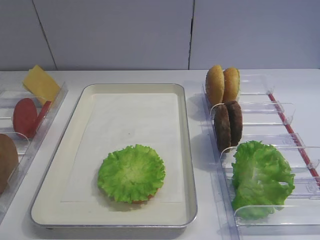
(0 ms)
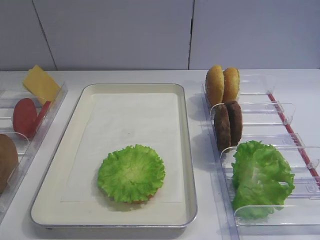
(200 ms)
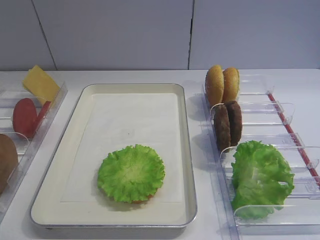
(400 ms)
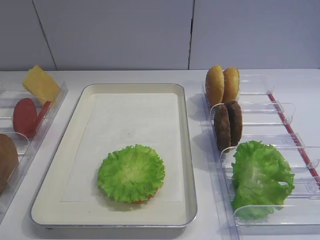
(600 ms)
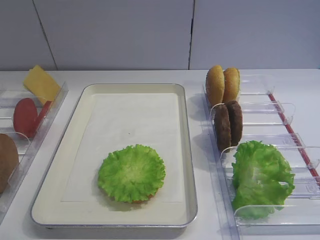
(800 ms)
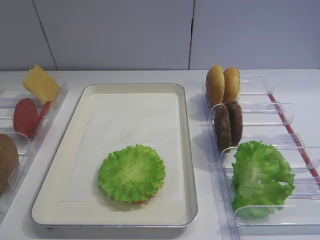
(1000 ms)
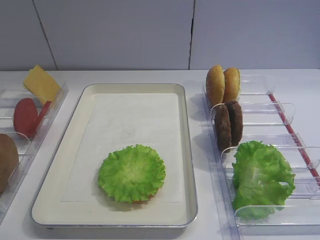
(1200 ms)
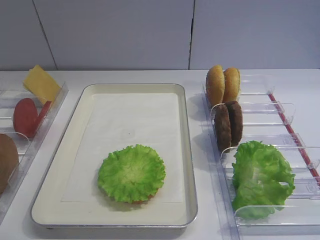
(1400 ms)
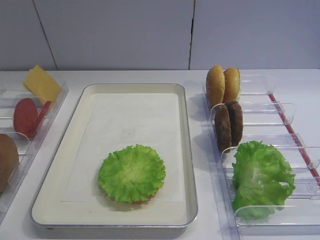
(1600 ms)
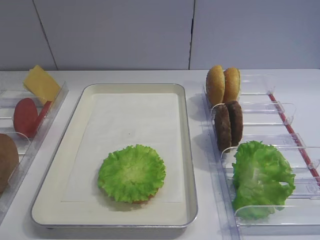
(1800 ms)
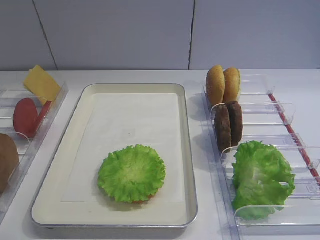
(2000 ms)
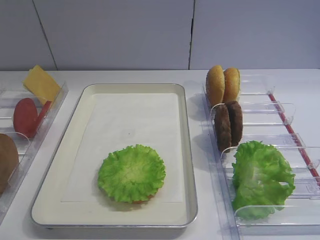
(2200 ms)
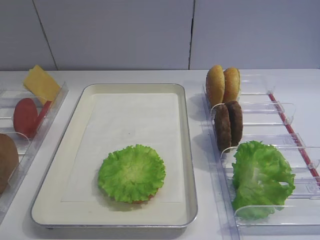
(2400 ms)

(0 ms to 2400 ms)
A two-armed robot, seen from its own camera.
1200 ms - 2400 ms: Both grippers stay put.

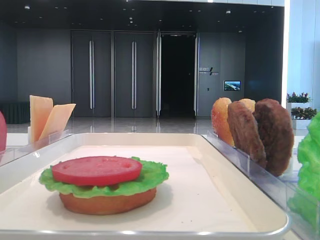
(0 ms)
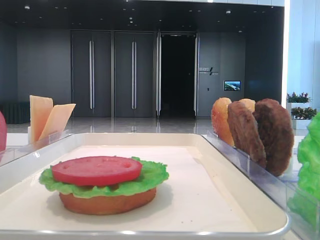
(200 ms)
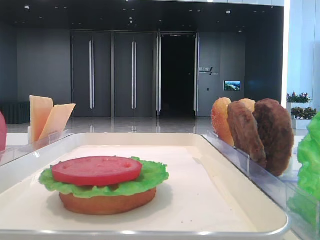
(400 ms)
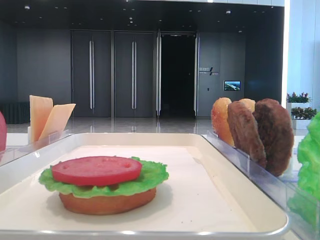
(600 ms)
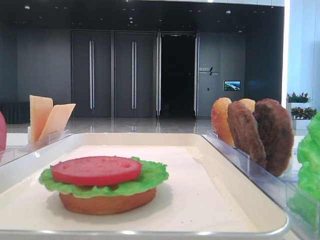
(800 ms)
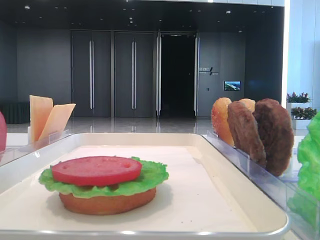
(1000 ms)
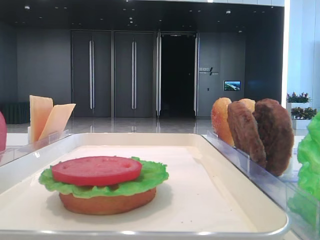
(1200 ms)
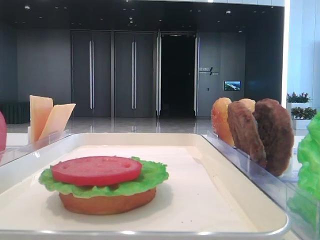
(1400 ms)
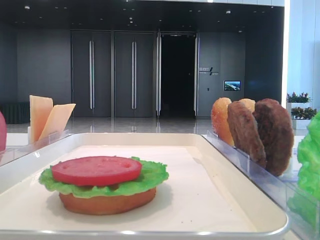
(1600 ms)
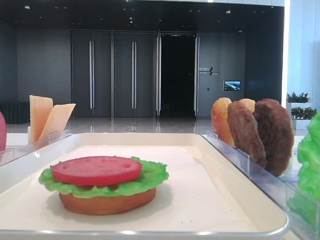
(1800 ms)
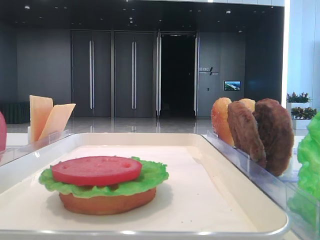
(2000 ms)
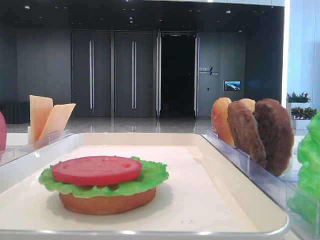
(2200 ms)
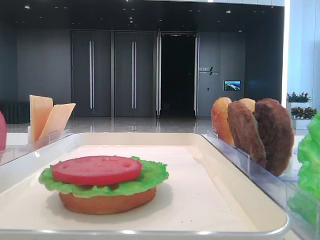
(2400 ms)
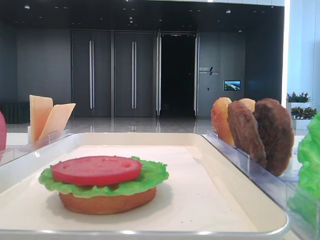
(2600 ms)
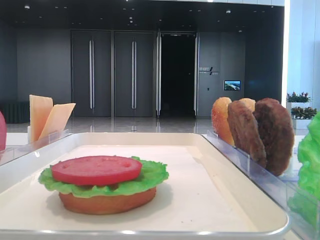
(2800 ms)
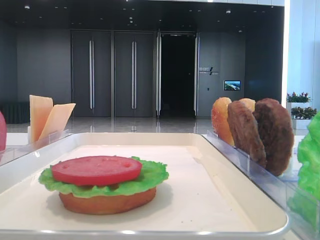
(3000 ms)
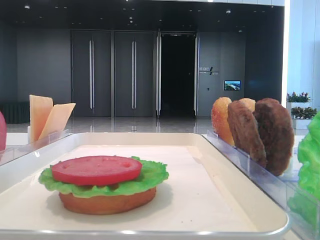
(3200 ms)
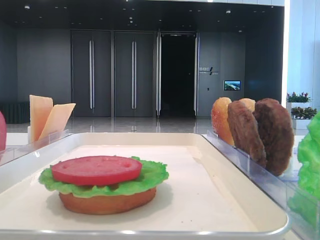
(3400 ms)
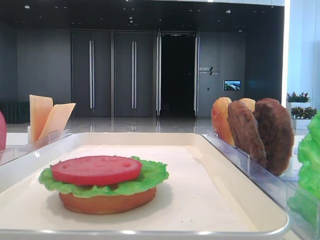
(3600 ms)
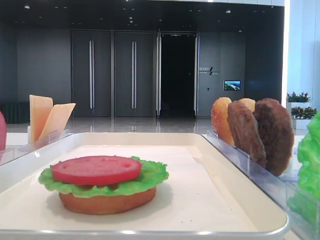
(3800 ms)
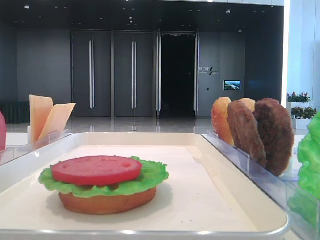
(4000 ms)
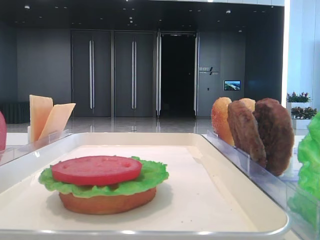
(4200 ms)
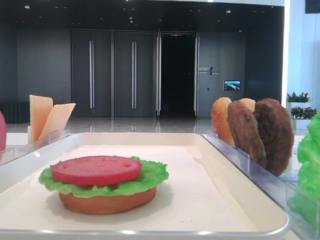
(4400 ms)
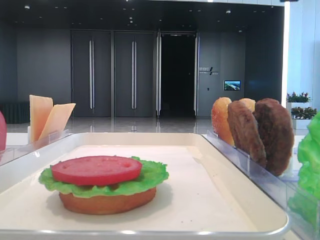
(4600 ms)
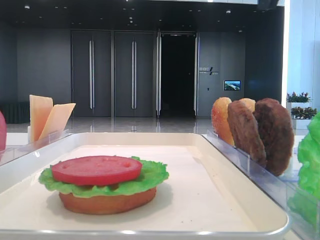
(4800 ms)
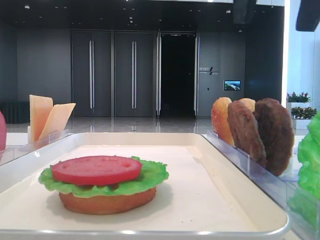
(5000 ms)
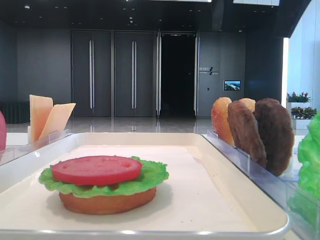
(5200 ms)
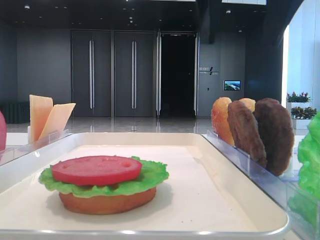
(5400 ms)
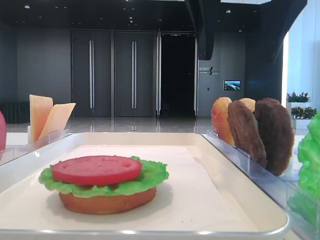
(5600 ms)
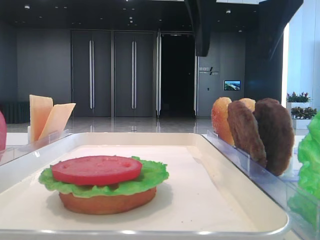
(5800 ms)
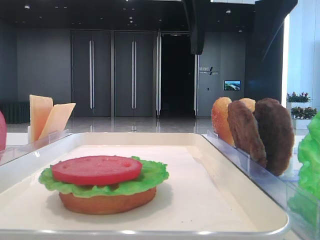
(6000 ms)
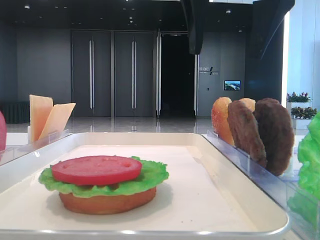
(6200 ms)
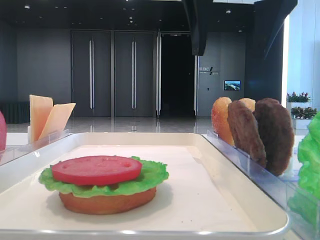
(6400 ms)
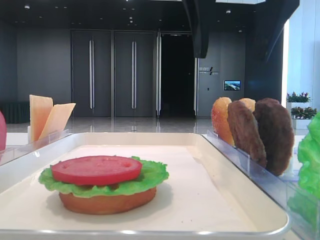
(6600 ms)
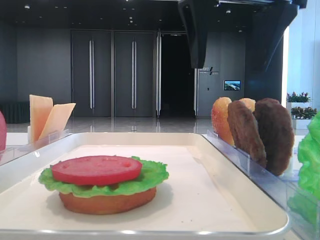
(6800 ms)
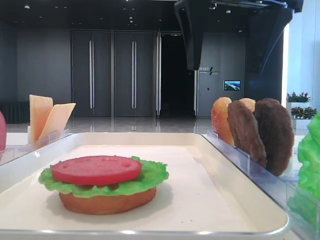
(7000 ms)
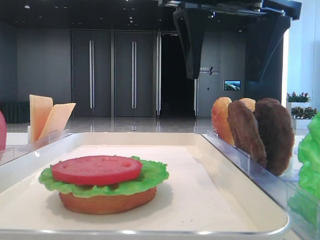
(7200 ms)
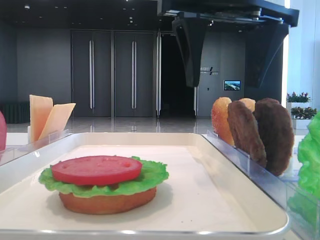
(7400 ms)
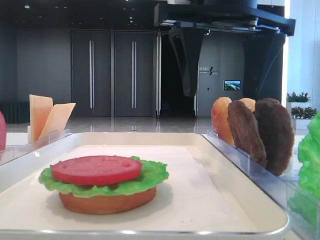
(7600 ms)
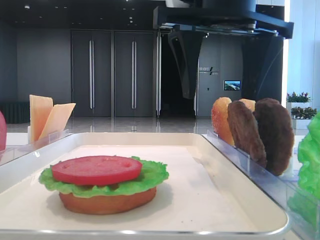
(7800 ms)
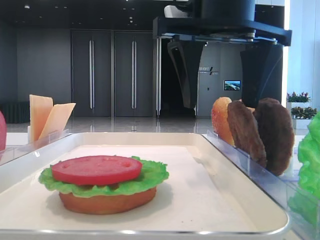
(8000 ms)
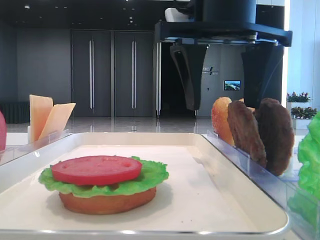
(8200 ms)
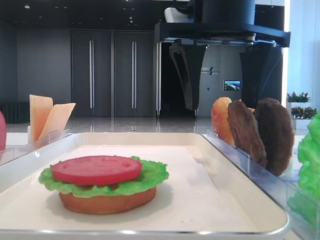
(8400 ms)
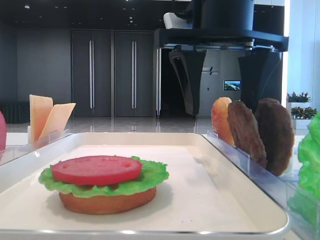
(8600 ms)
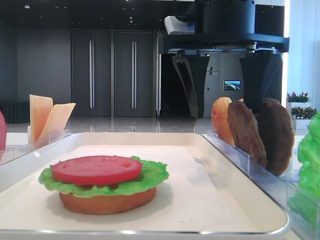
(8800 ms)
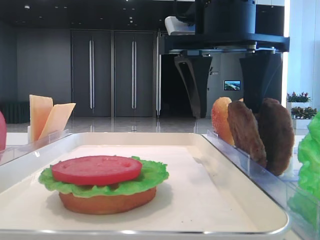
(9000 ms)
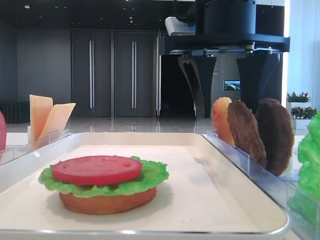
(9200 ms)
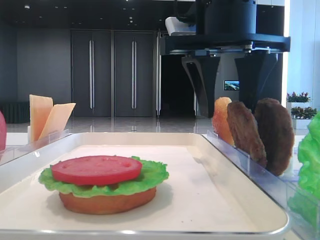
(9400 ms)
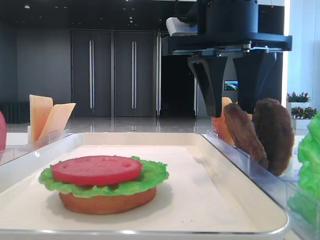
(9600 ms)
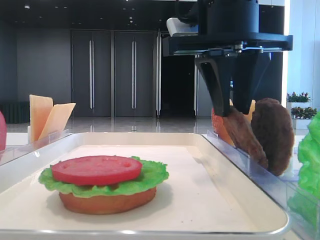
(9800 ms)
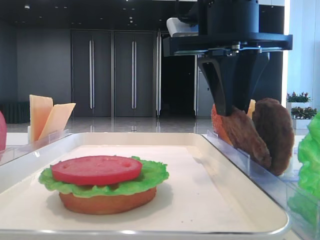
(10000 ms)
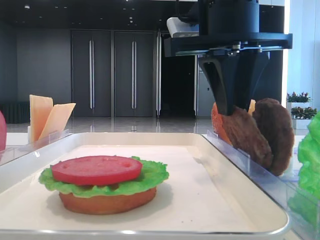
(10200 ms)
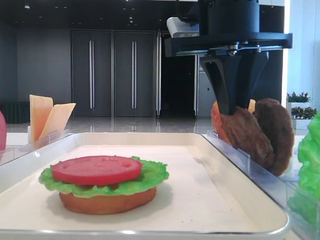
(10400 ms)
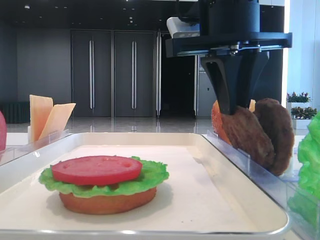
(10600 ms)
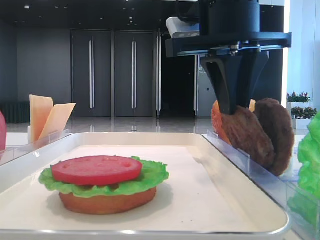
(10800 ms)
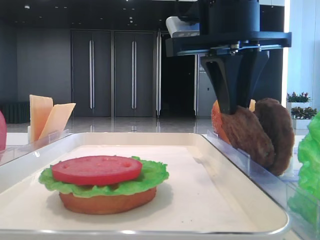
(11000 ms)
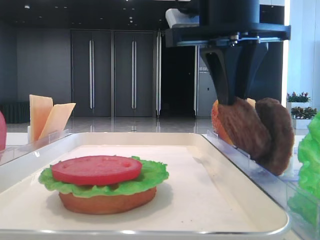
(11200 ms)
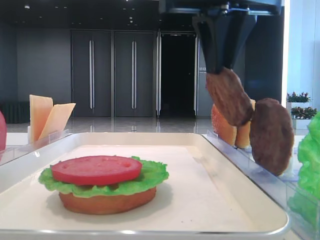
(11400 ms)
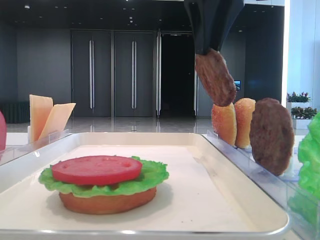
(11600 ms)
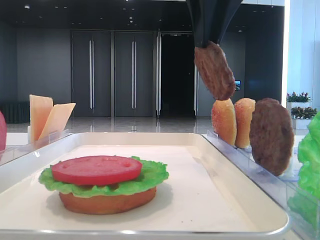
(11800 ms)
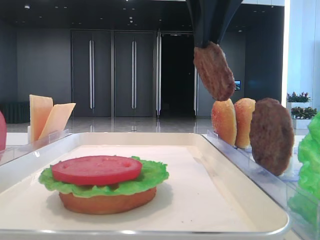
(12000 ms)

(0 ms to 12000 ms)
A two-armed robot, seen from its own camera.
Step, 0 ms - 11000 ms: Grab the patty with the right hand.
4400 ms - 6000 ms: The right gripper goes roughly 10 cm to the left and forward.
6000 ms - 7600 ms: The grippers move only a little.
7600 ms - 9000 ms: The grippers move only a little.
9000 ms - 10400 ms: The right gripper closes.
10400 ms - 12000 ms: The right gripper moves upward, some 10 cm.

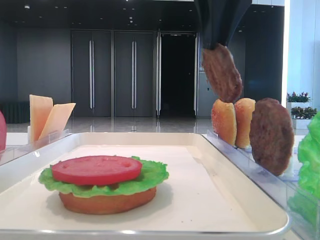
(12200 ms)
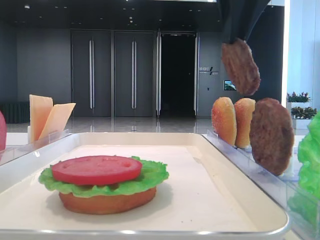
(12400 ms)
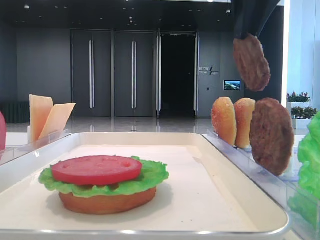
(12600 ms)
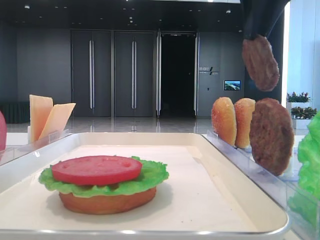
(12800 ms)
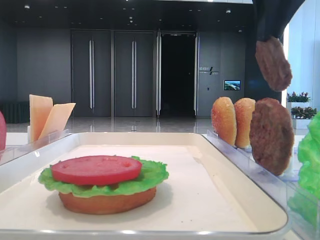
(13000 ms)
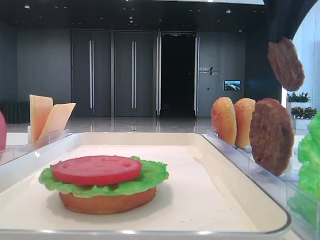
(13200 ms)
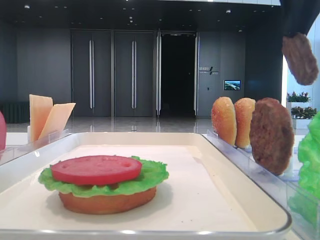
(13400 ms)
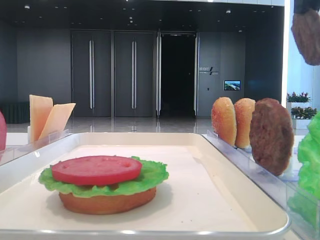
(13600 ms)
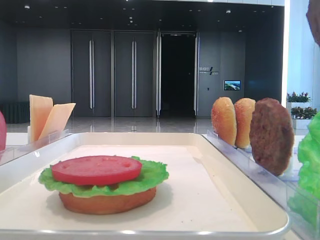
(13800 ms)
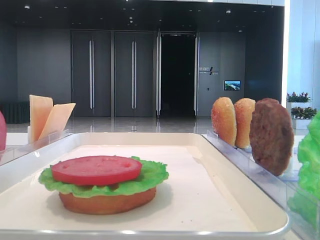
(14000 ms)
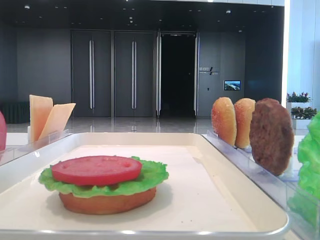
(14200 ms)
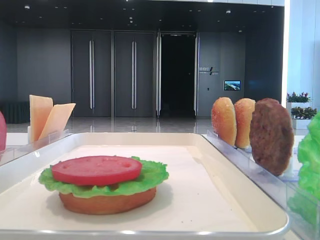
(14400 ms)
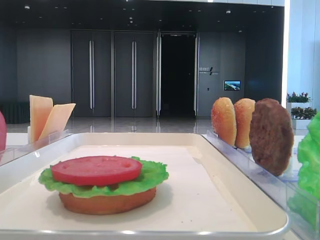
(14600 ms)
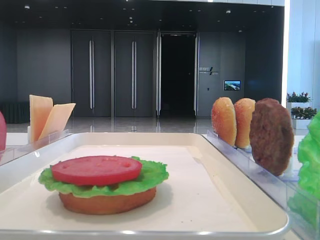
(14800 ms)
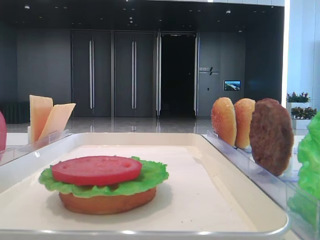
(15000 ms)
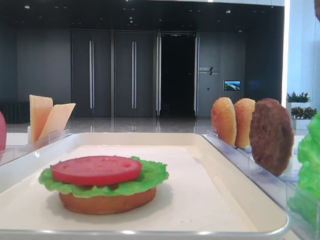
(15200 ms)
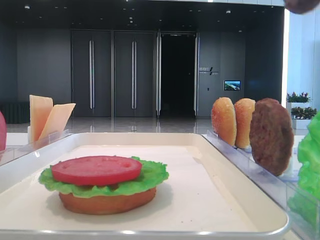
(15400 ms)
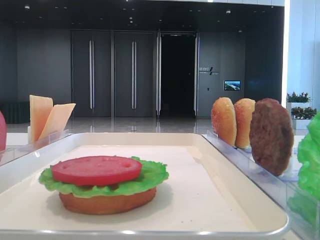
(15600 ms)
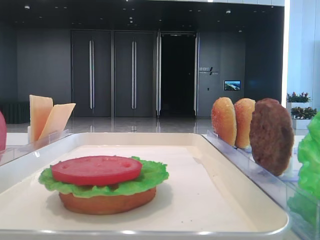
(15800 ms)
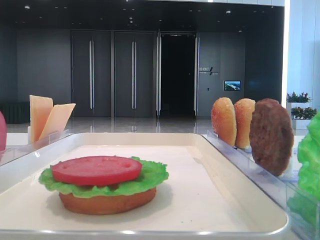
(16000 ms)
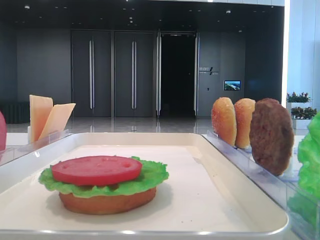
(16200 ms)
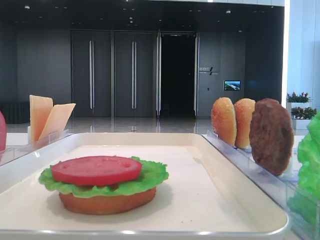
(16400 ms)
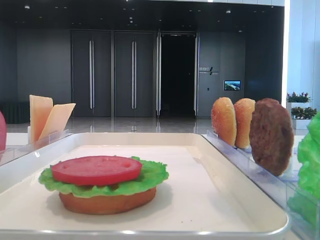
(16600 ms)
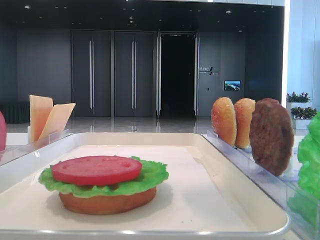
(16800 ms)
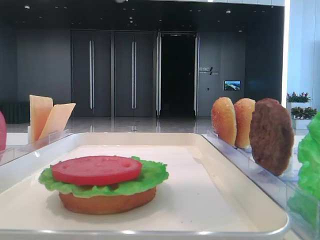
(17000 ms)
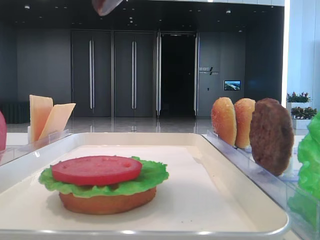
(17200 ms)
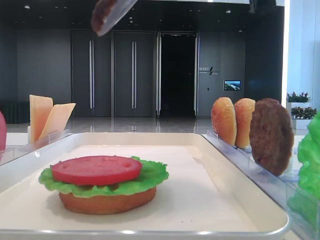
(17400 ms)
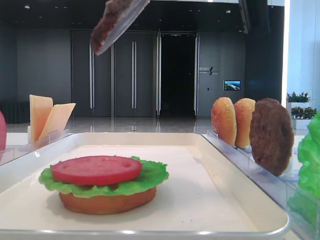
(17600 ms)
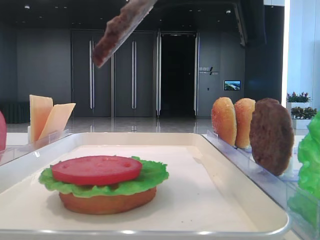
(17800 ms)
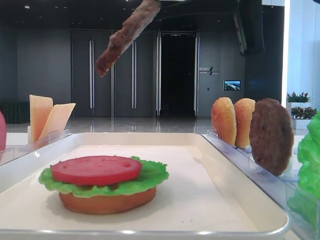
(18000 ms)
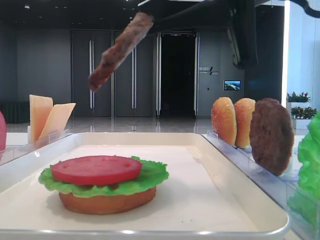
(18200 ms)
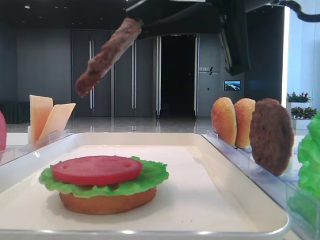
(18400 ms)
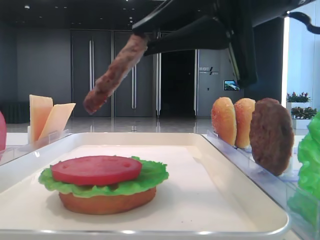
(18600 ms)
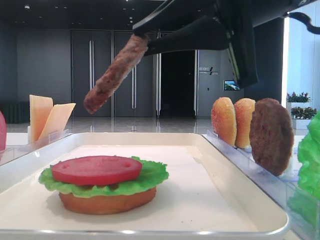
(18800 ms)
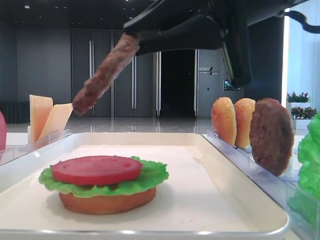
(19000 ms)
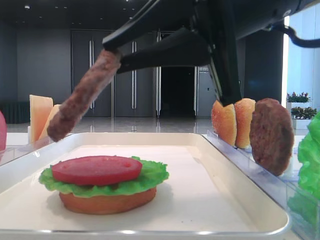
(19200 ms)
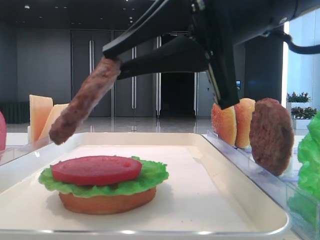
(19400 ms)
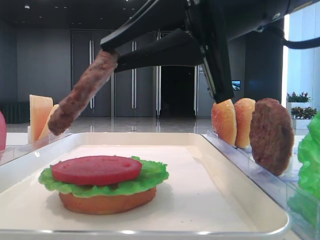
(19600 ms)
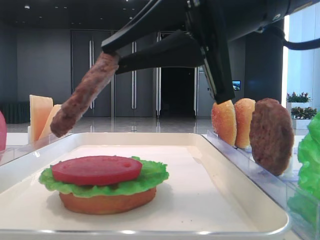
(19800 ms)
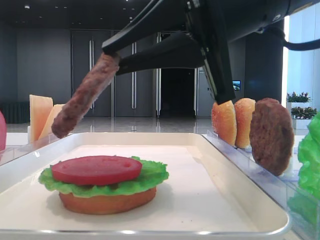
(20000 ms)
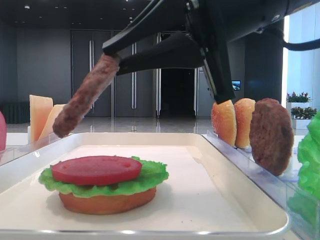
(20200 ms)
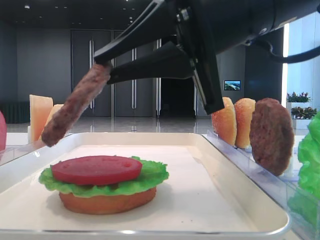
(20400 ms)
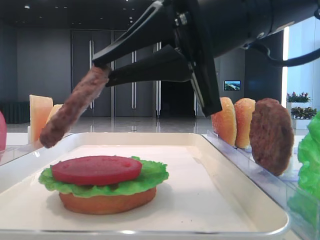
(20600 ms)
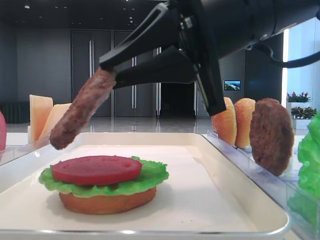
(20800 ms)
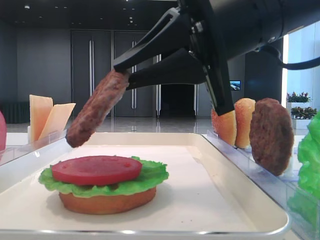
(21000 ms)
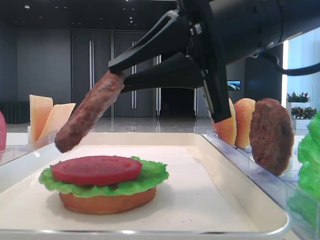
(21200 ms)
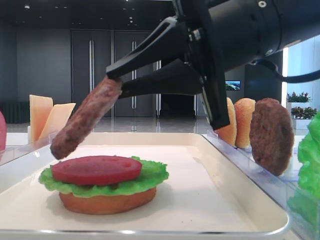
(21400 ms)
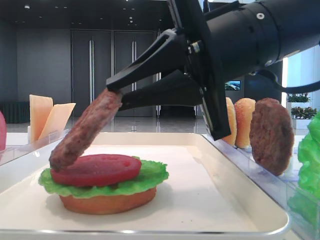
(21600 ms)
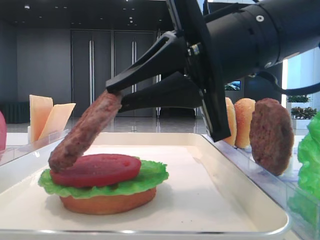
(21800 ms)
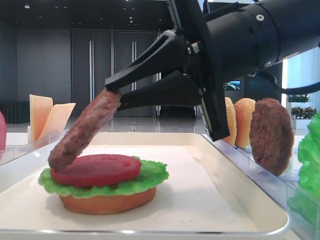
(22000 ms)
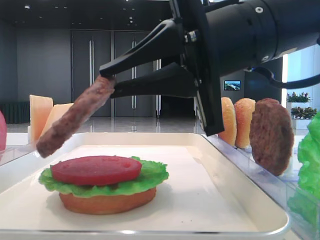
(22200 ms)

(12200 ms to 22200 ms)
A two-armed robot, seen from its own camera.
12200 ms - 13600 ms: The right gripper moves to the right, roughly 15 cm.
13600 ms - 15000 ms: The right gripper travels backward by roughly 15 cm.
15000 ms - 16400 ms: The right gripper is displaced to the left by roughly 5 cm.
16400 ms - 18000 ms: The right gripper shifts about 15 cm downward, forward and to the left.
18000 ms - 19400 ms: The right gripper moves downward, about 5 cm.
19400 ms - 22200 ms: The grippers move only a little.
